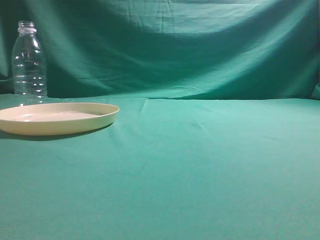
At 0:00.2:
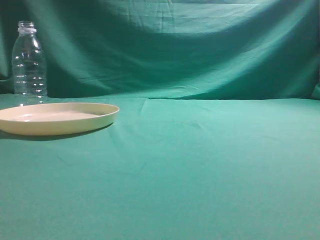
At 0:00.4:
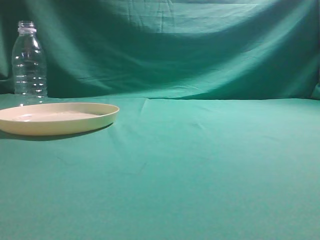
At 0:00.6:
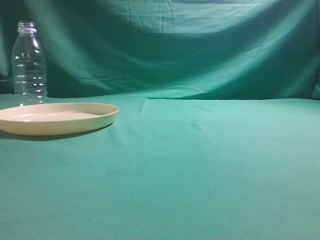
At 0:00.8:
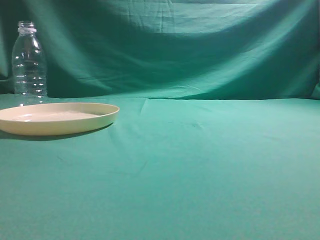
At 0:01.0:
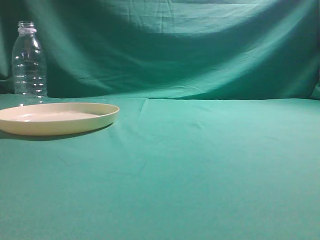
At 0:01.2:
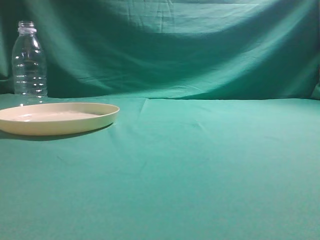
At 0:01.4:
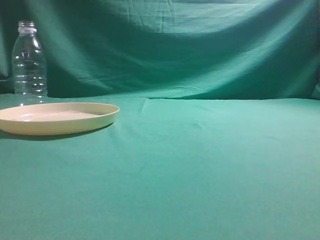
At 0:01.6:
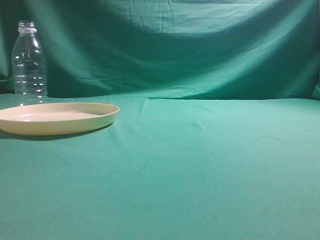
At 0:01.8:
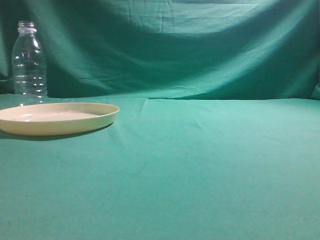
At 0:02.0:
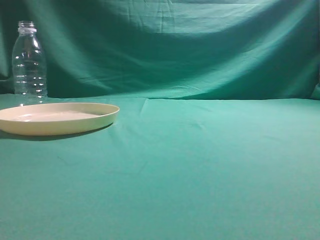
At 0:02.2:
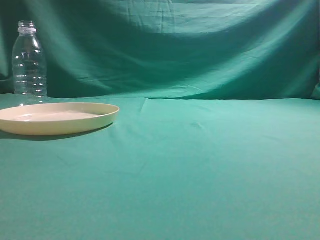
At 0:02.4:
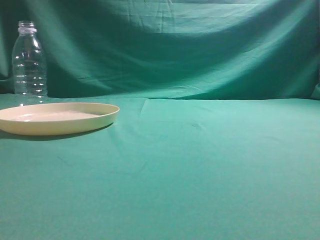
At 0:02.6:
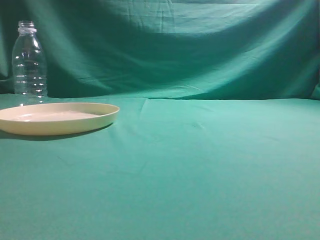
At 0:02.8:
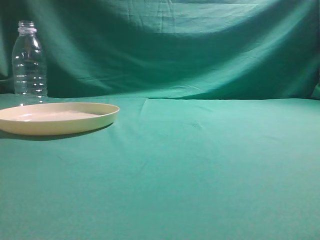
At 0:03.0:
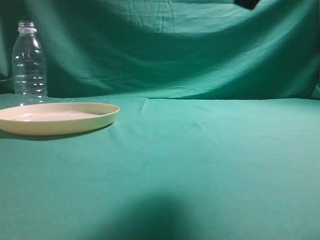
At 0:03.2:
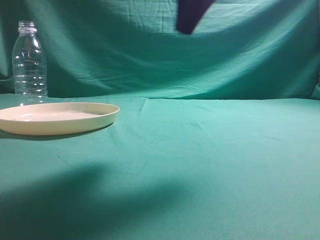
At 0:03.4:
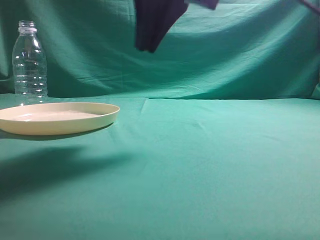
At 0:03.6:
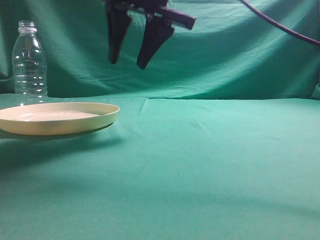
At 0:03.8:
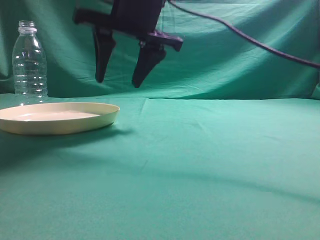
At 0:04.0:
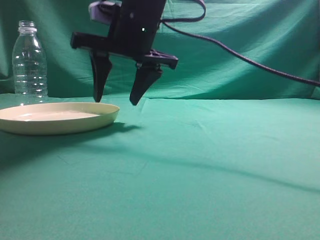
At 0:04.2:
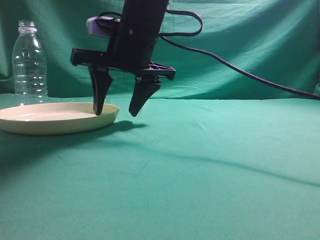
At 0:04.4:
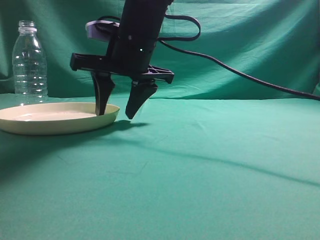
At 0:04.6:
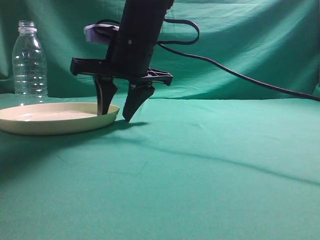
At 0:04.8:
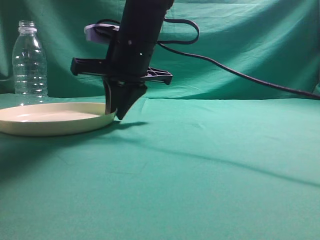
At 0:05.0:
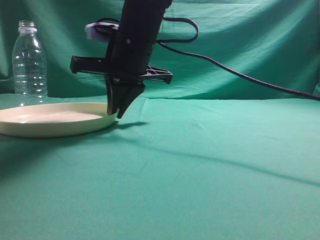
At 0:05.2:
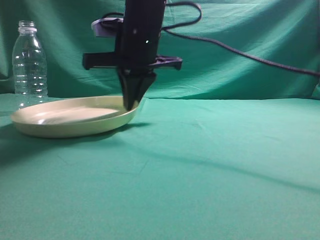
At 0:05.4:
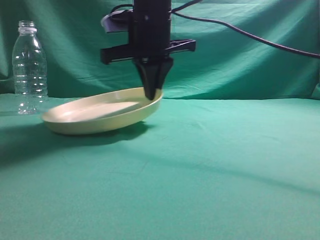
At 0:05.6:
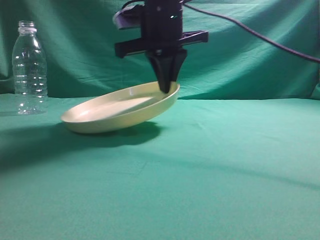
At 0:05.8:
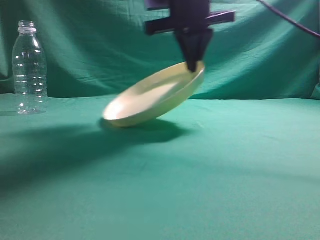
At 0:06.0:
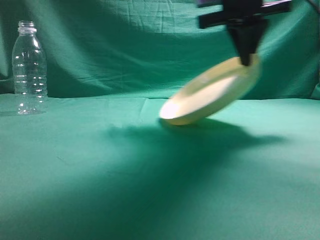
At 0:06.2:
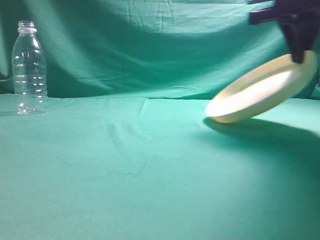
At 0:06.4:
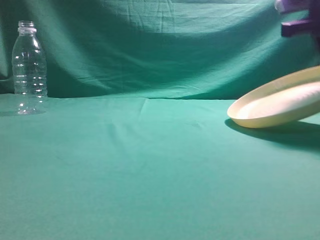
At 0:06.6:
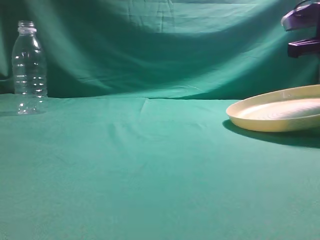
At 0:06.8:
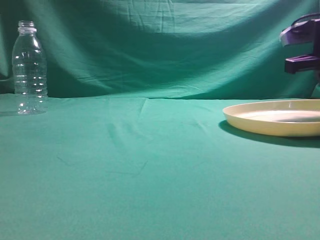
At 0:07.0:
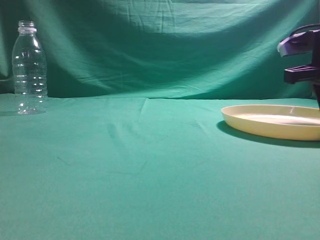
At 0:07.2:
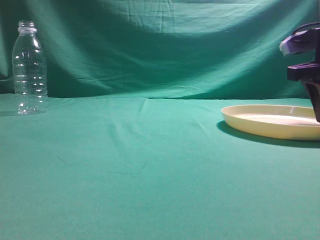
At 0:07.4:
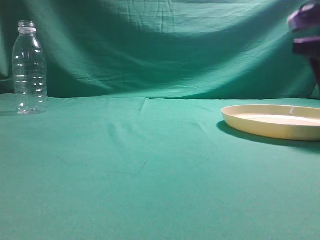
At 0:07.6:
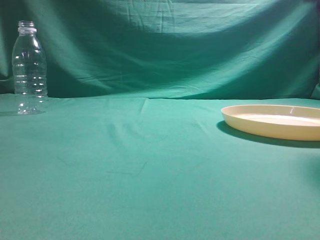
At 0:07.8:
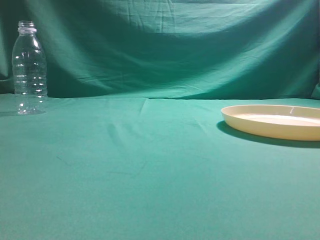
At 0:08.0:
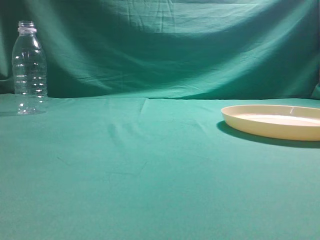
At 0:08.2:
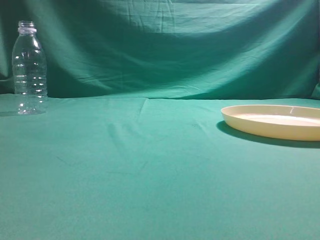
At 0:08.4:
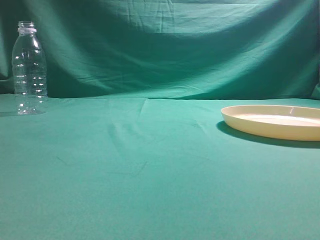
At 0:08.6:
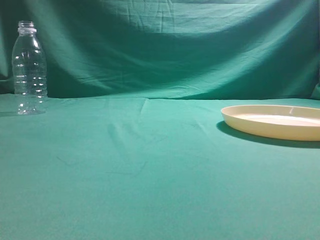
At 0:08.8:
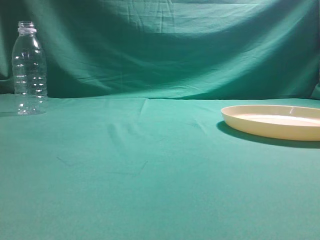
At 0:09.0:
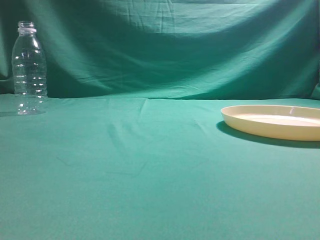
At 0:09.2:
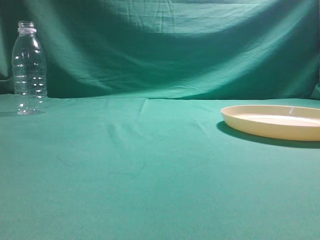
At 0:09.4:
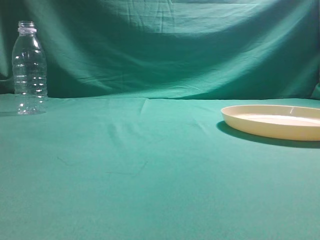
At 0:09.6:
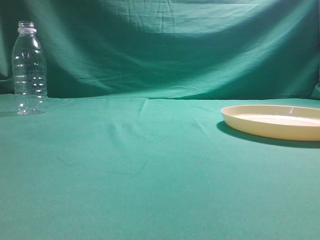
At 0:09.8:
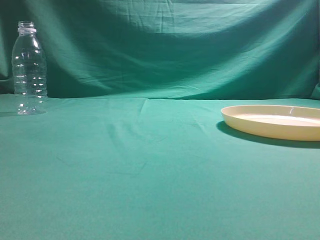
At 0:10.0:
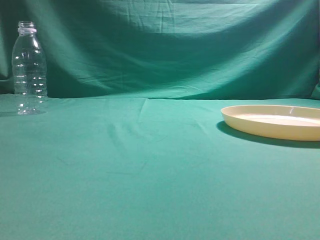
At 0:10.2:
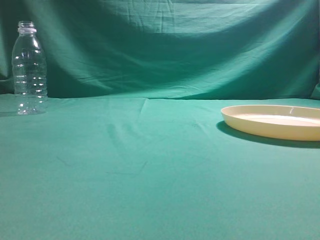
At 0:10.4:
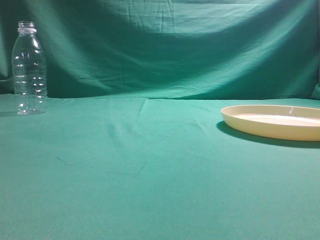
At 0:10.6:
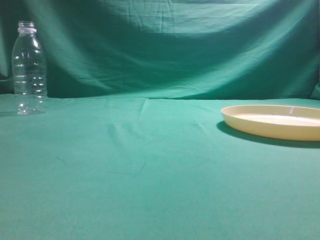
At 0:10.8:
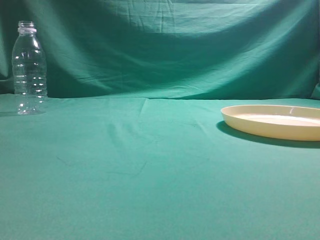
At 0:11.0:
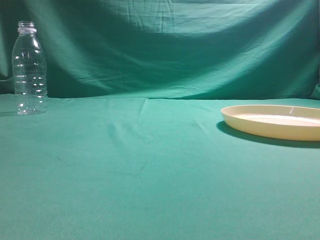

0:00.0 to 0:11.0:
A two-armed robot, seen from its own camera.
Step, 0:00.0 to 0:05.4: Pick the container that can hold fruits.
Step, 0:05.6 to 0:07.6: Move the picked object to the right side of the table.
0:01.6 to 0:03.2: The right gripper travels forward and to the left by some 30 cm.
0:03.2 to 0:04.8: The right gripper moves downward, to the left and forward, about 20 cm, and opens.
0:04.8 to 0:06.2: The right gripper goes about 25 cm to the right and upward, and closes up.
0:06.2 to 0:07.8: The right gripper moves backward and to the right, roughly 15 cm, moves some 10 cm downward and comes back, and opens up.
